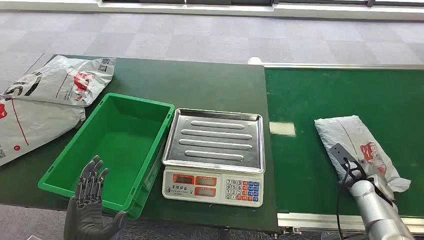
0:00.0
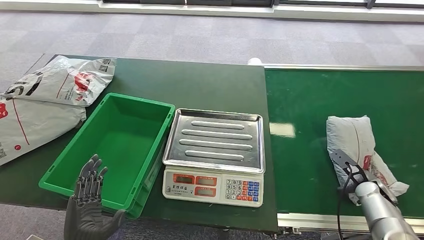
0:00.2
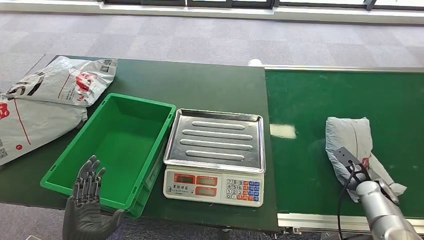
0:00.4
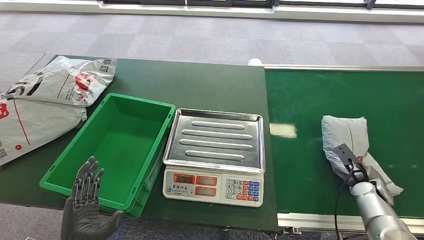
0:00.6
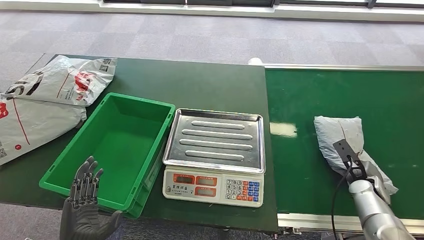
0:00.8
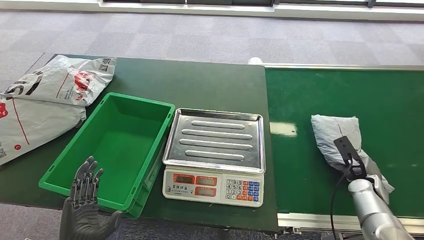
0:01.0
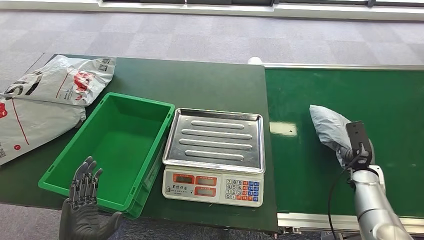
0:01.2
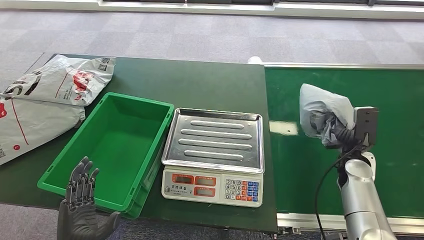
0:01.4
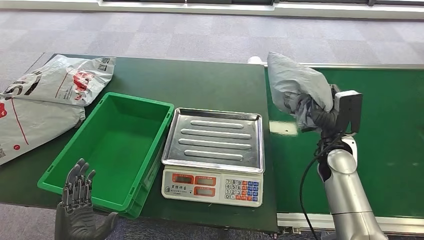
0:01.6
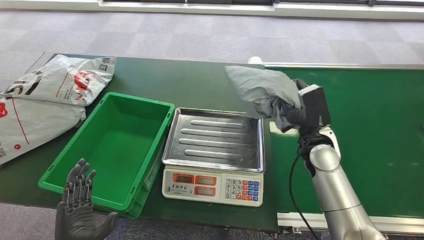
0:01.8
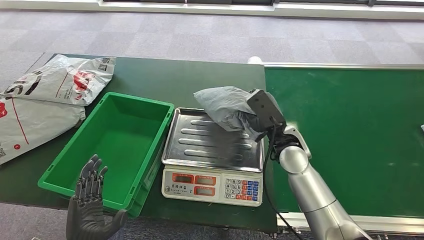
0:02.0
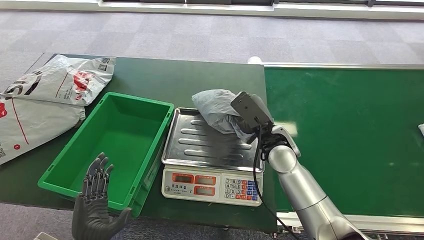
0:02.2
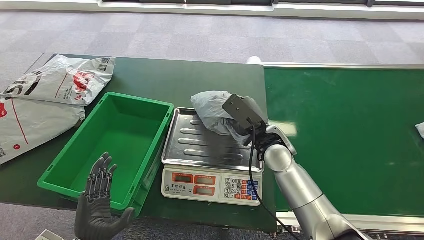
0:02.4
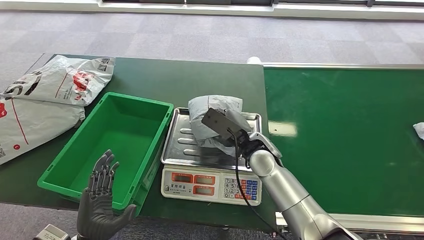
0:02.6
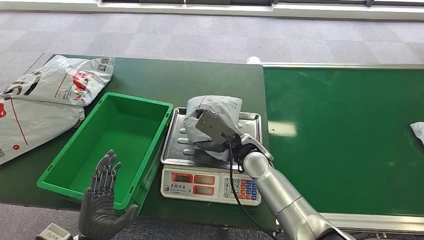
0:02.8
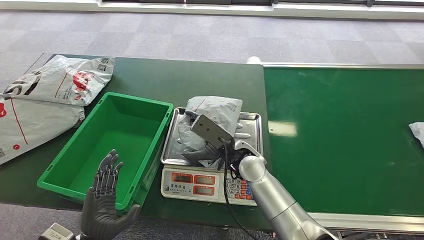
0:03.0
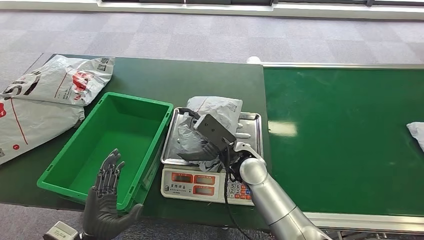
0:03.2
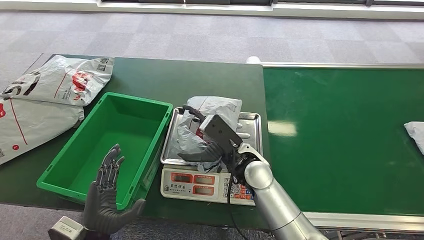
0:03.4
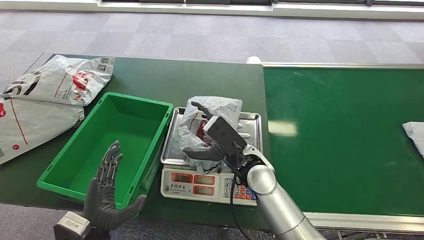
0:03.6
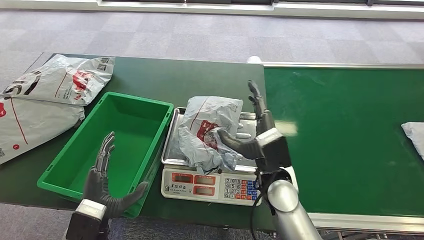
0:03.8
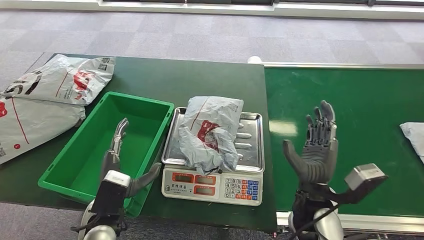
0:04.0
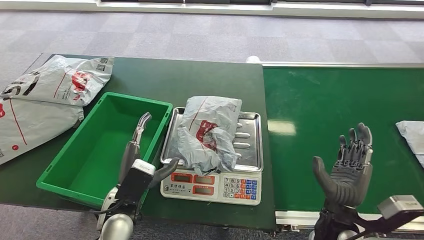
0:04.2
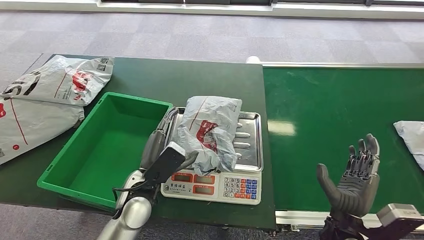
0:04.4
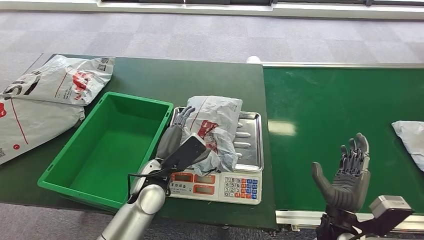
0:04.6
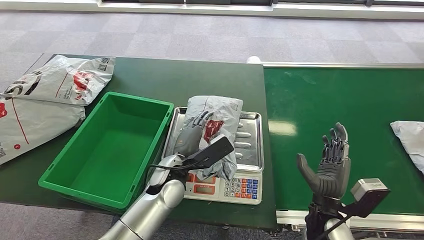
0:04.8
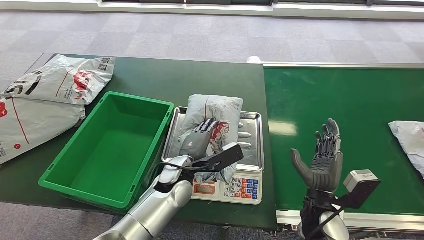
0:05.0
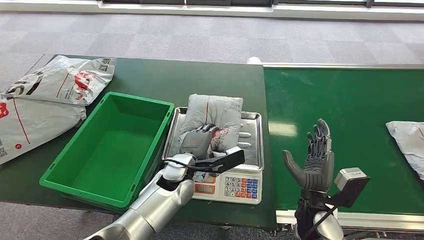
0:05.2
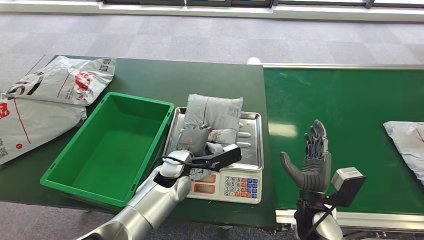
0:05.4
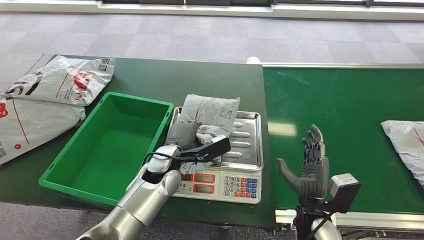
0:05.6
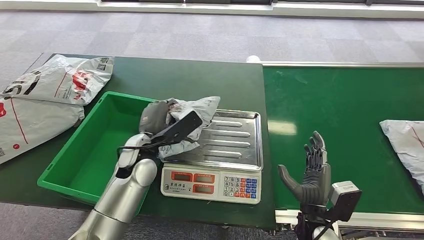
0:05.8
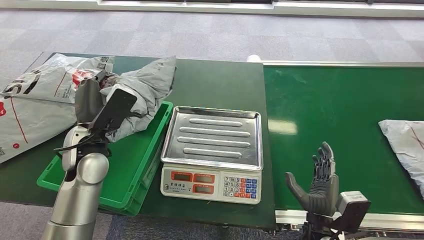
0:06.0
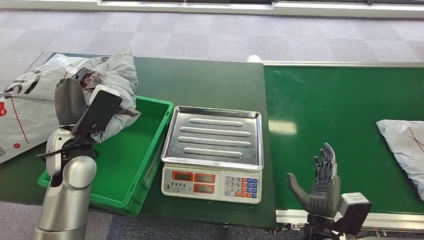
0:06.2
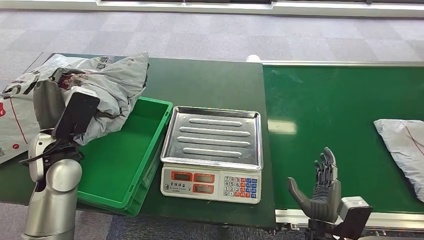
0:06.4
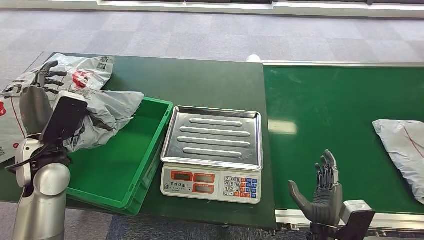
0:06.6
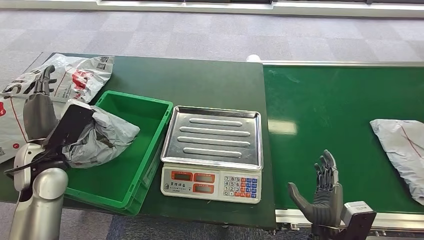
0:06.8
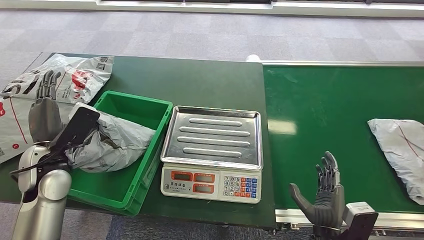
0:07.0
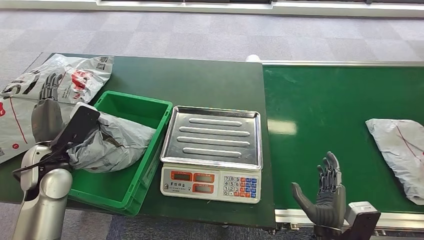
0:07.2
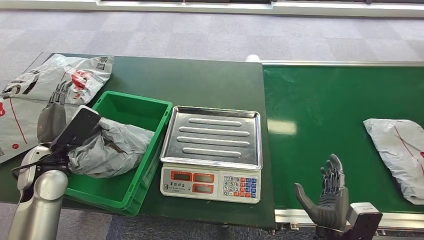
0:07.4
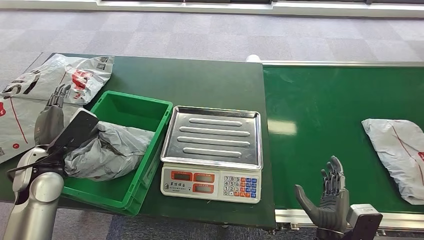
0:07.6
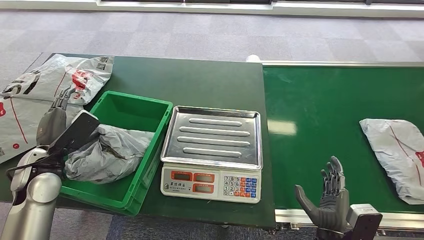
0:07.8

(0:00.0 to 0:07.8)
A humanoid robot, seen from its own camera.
Task of the whole recording: Weigh the package on the weighing device and place it in the left basket.
Step, 0:00.0 - 0:01.6: Pick up the package from the conveyor belt.
Step, 0:01.8 - 0:03.6: Place the package onto the inbound machine.
Step, 0:04.6 - 0:05.8: Pick up the package from the inbound machine.
Step, 0:06.4 - 0:07.8: Place the package into the parcel locker.
0:03.2 - 0:04.6: The left hand travels forward and to the right by approximately 20 cm; the right hand moves to the right and backward, some 25 cm.

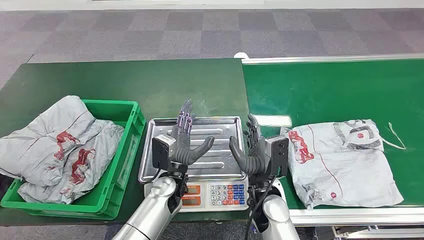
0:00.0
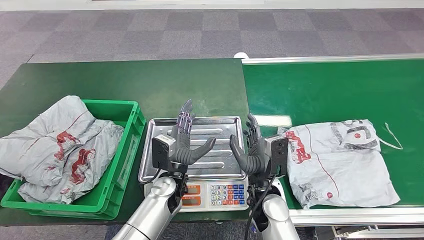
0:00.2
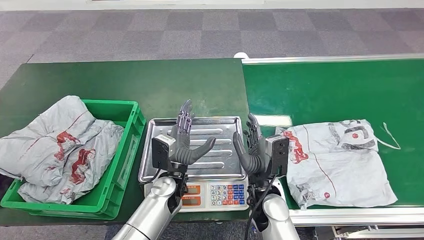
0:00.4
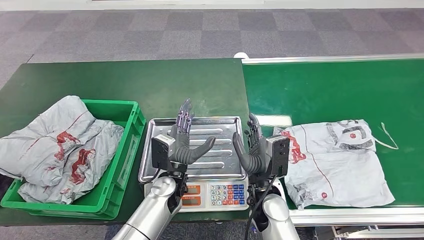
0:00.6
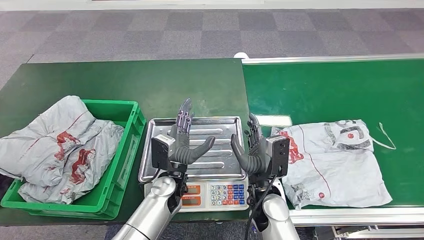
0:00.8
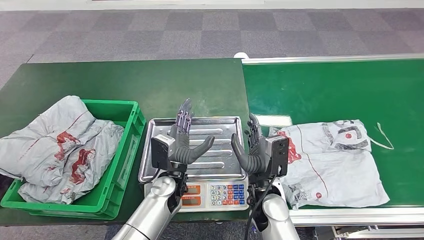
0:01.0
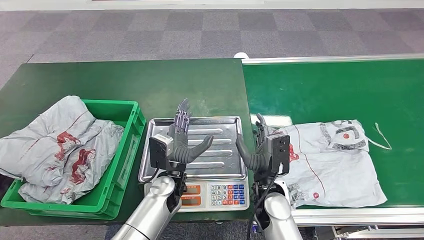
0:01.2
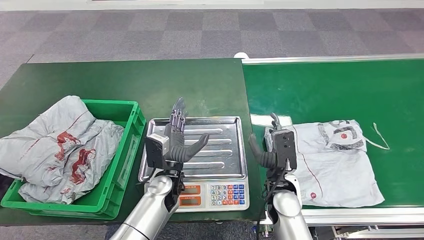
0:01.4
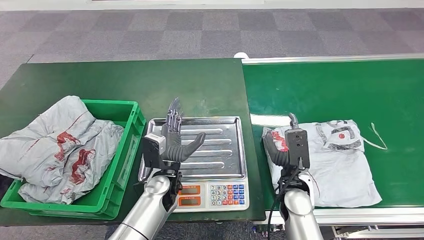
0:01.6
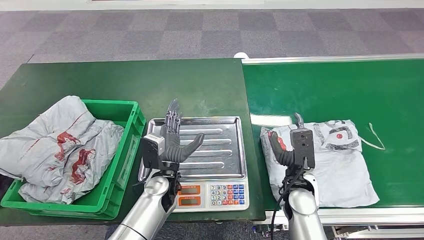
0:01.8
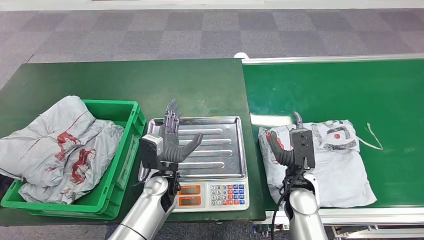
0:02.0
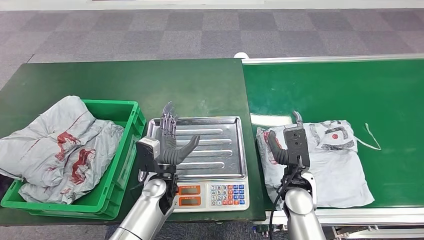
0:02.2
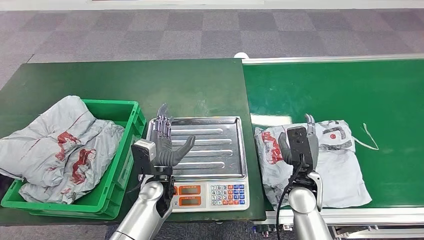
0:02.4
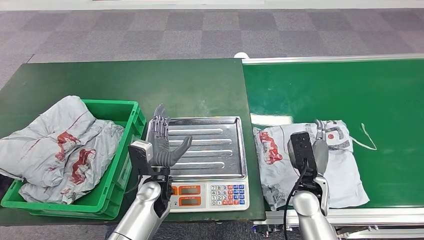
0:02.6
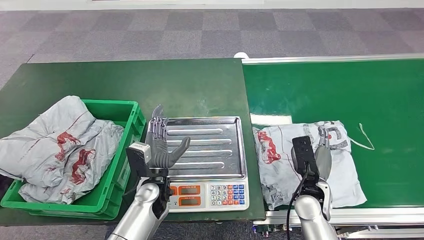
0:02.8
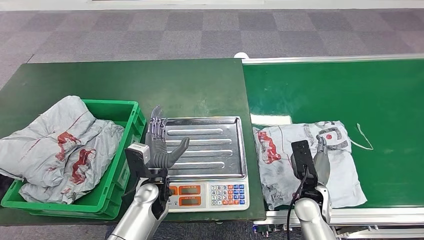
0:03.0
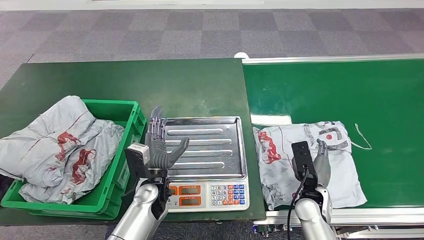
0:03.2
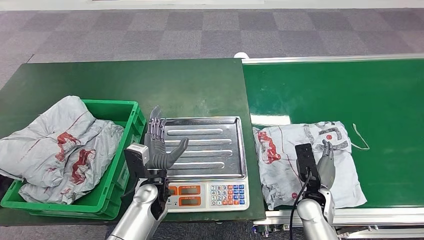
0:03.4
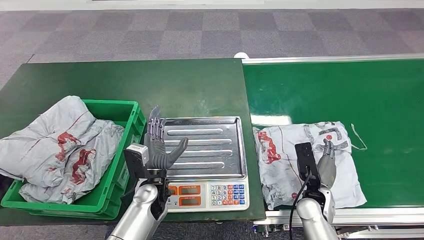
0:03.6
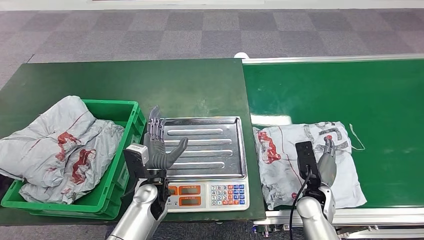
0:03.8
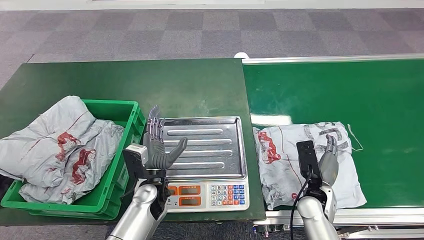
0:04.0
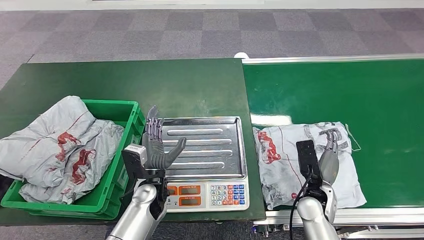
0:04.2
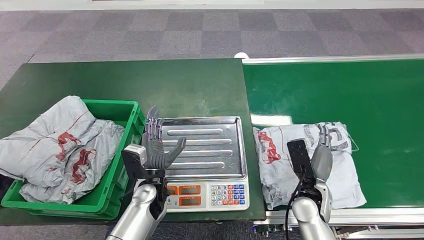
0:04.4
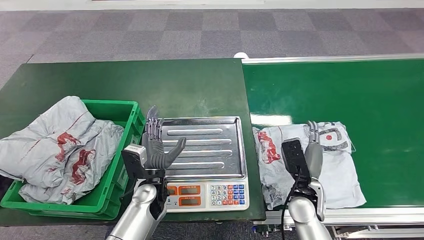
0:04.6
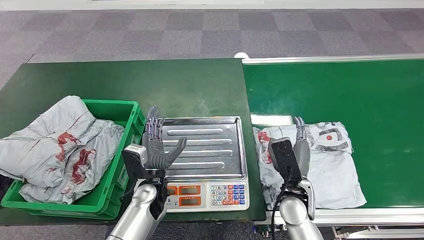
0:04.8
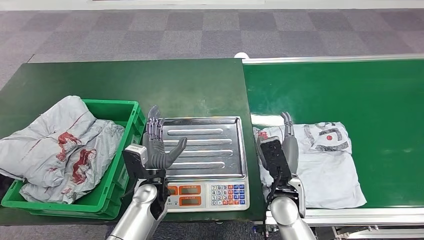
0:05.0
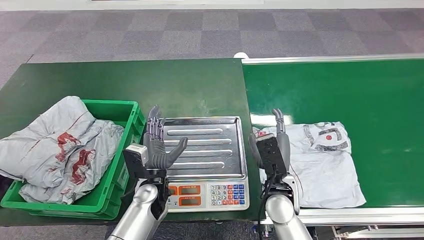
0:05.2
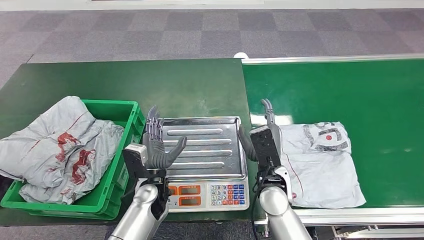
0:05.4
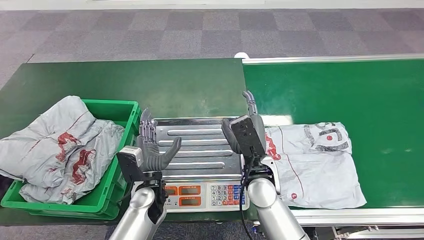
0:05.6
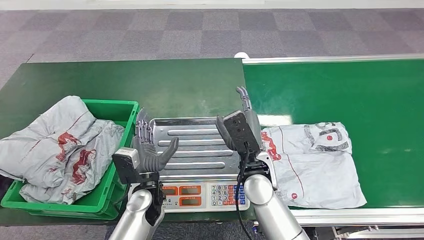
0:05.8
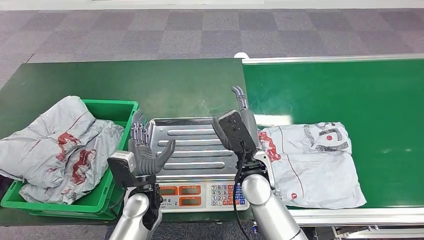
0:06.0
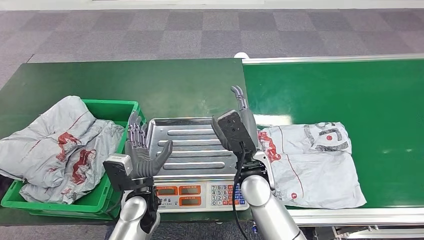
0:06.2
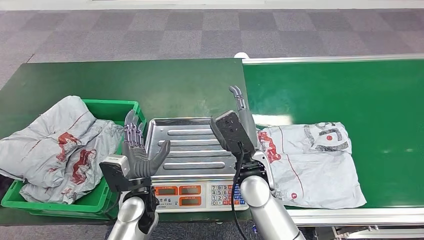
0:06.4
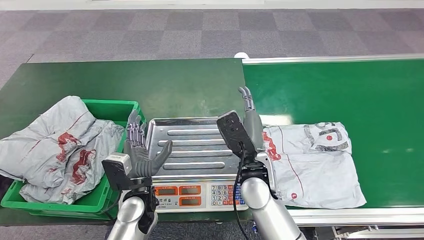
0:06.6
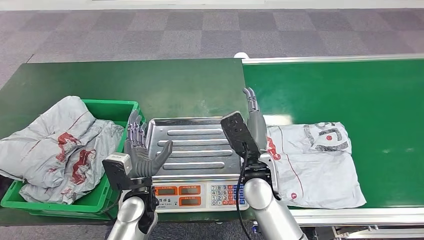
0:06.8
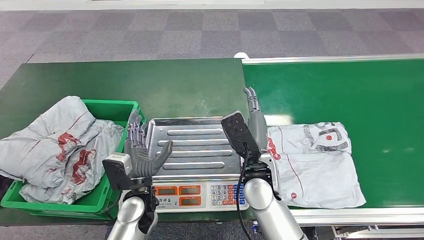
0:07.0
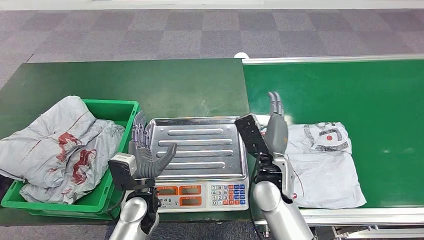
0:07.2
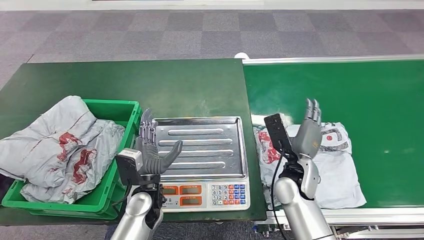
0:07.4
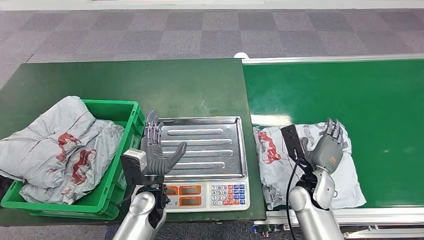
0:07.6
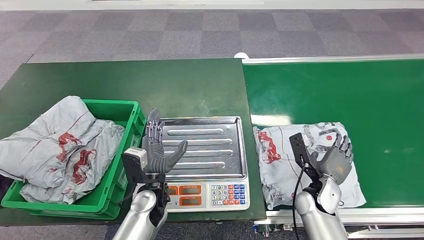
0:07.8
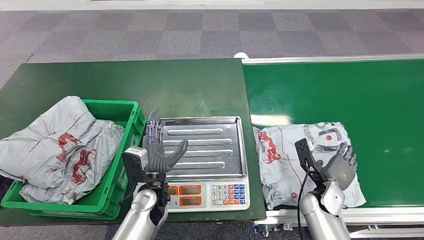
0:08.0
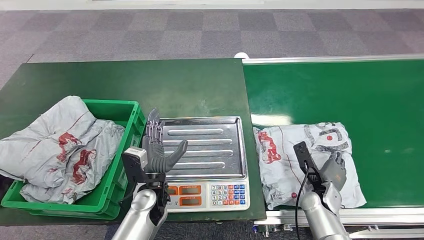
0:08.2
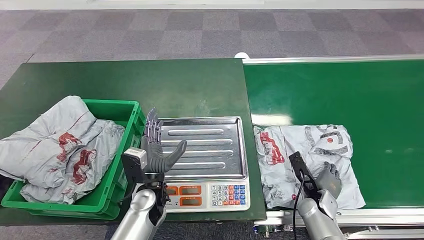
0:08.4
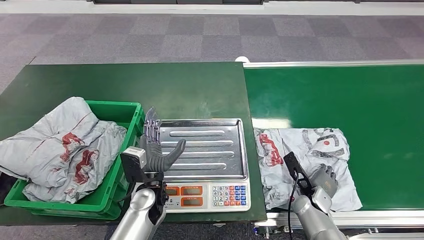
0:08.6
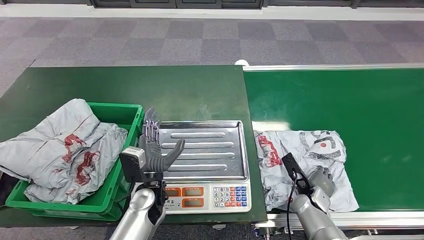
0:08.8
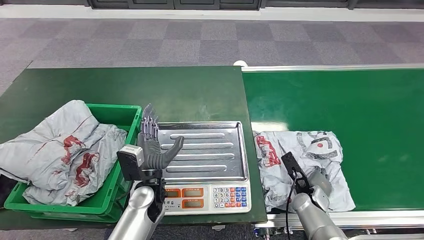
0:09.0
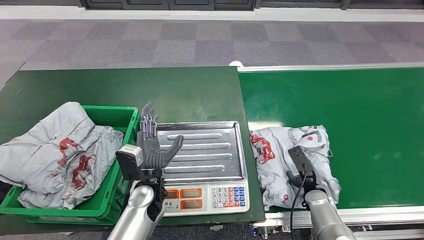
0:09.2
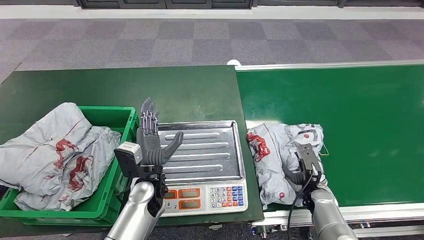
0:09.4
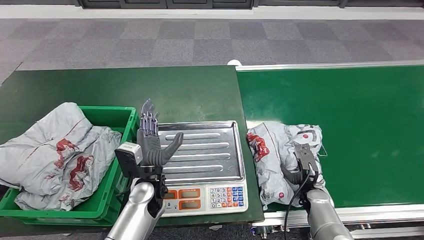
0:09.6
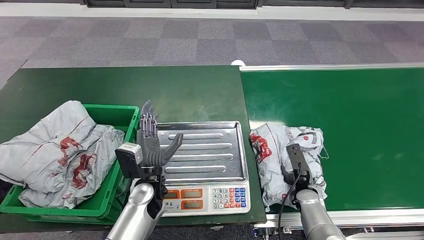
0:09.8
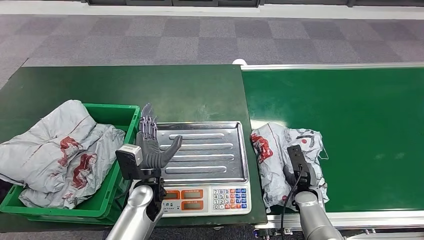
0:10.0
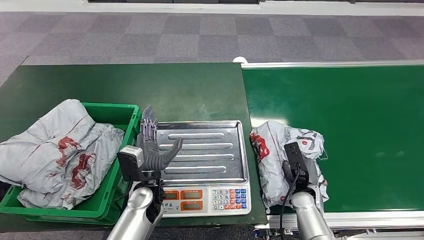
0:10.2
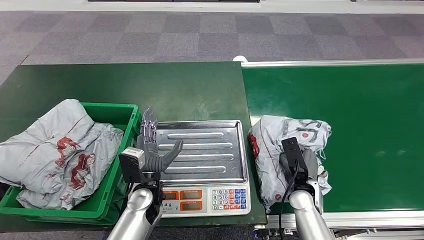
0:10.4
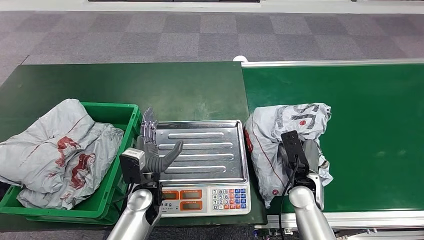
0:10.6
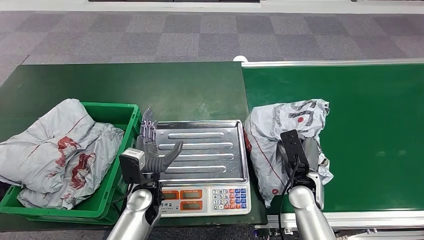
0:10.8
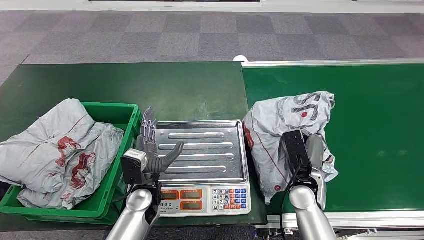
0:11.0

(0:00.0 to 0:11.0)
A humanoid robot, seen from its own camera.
Task of the whole recording: Weigh the package on the weighing device and place it in the left basket.
Step, 0:00.0 - 0:10.8: Pick up the package from the conveyor belt.
0:01.6 - 0:03.2: The right hand travels to the right and downward by some 10 cm.
0:03.2 - 0:04.8: The right hand goes approximately 10 cm to the left and upward.
0:04.8 - 0:06.2: The right hand moves to the left and upward, approximately 15 cm.
0:06.2 - 0:07.8: The right hand goes approximately 20 cm to the right and downward.
